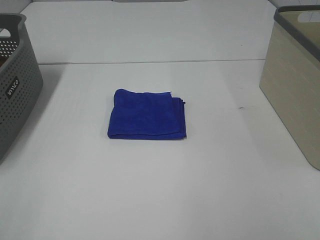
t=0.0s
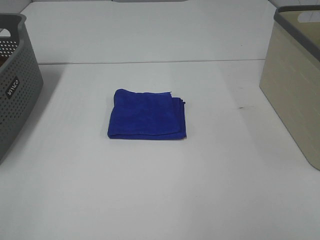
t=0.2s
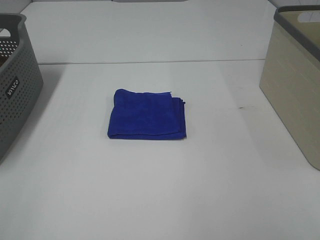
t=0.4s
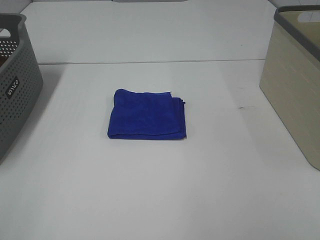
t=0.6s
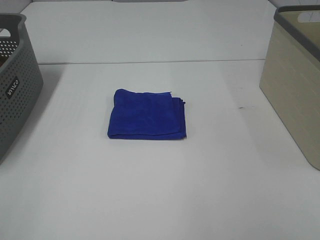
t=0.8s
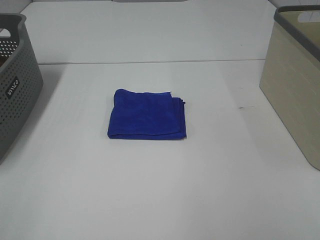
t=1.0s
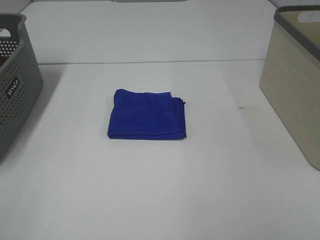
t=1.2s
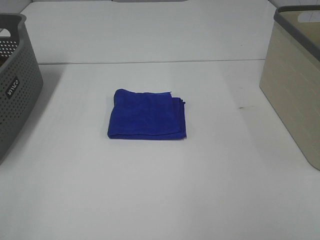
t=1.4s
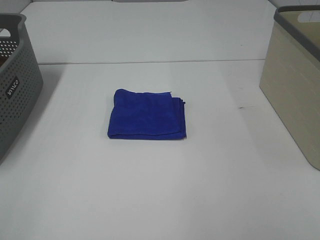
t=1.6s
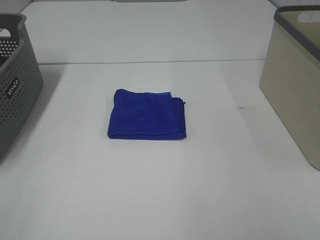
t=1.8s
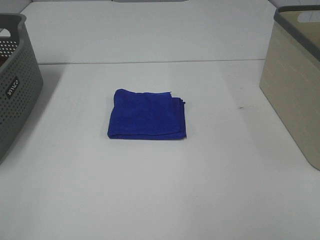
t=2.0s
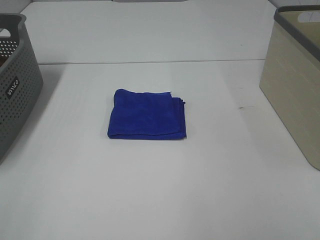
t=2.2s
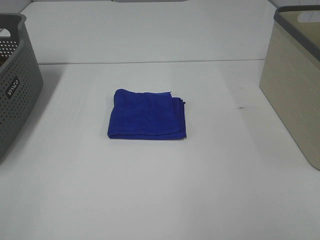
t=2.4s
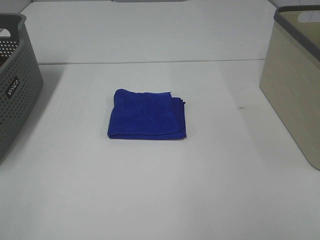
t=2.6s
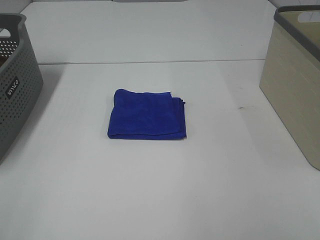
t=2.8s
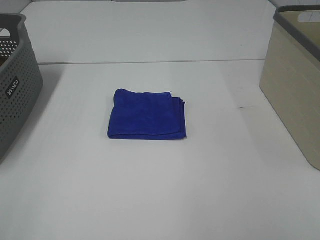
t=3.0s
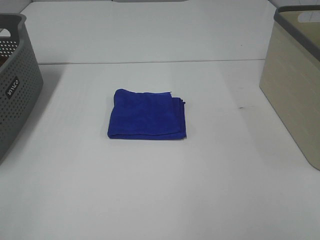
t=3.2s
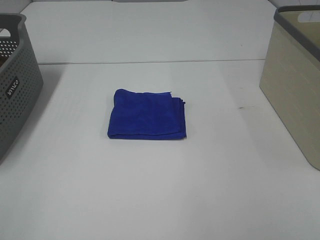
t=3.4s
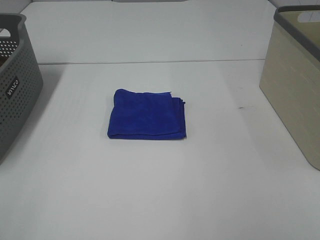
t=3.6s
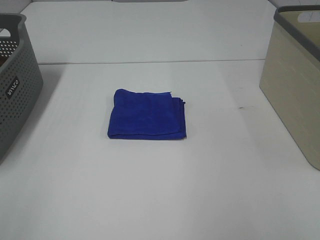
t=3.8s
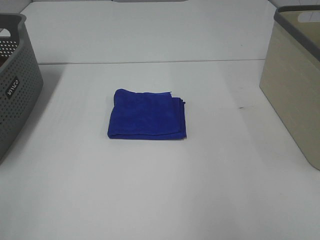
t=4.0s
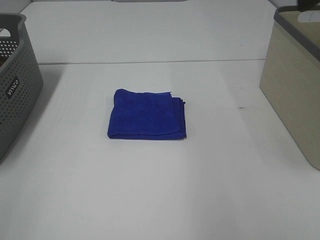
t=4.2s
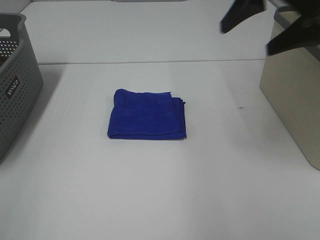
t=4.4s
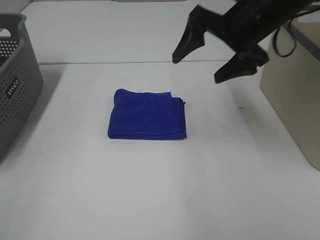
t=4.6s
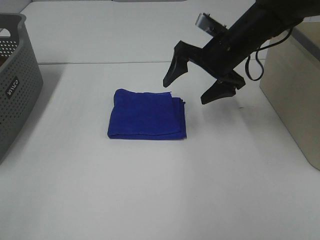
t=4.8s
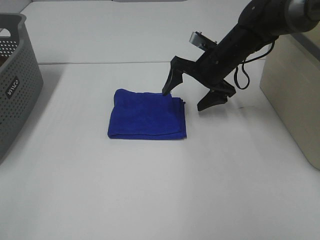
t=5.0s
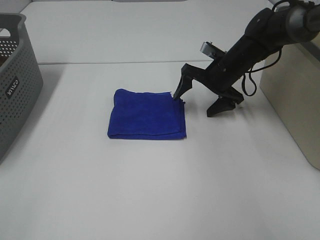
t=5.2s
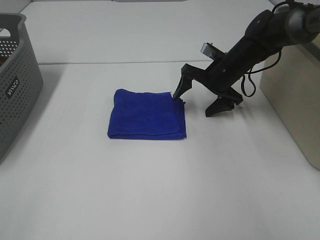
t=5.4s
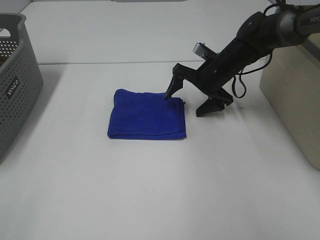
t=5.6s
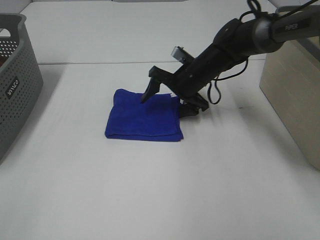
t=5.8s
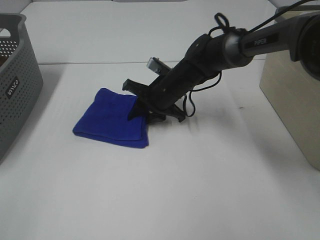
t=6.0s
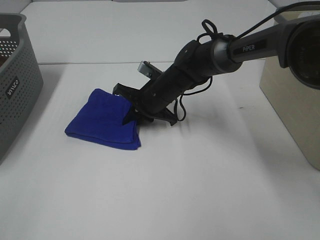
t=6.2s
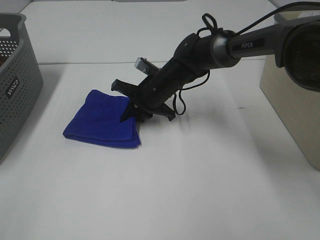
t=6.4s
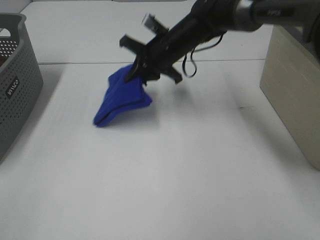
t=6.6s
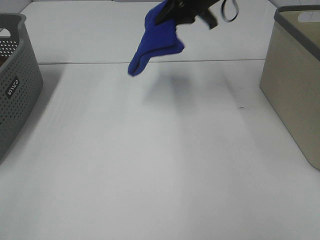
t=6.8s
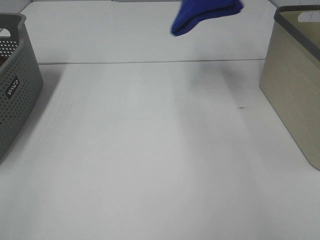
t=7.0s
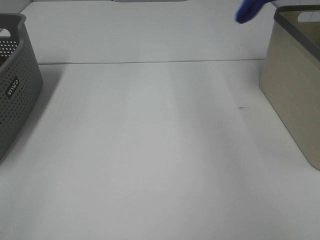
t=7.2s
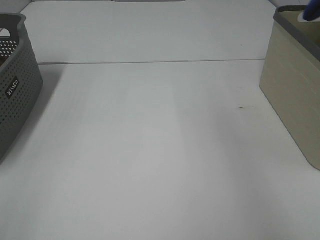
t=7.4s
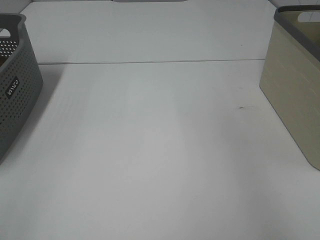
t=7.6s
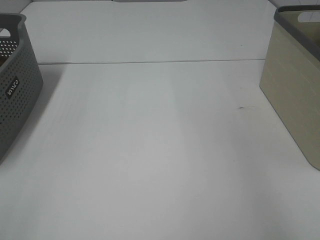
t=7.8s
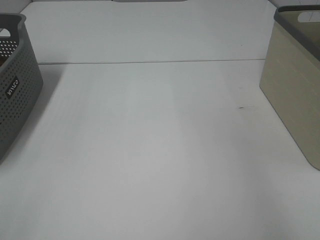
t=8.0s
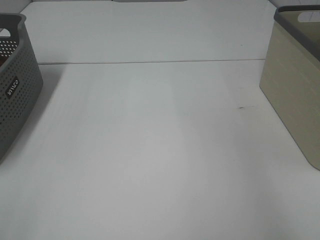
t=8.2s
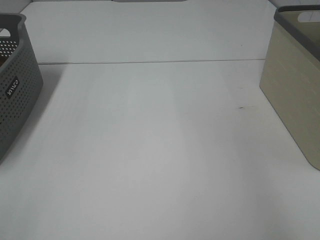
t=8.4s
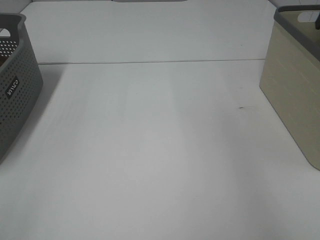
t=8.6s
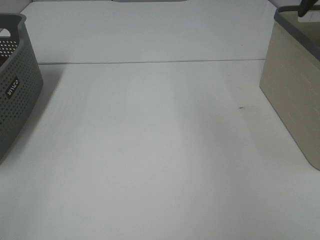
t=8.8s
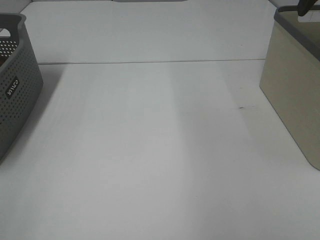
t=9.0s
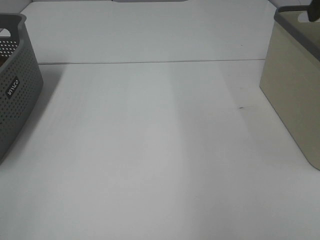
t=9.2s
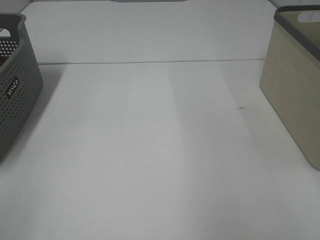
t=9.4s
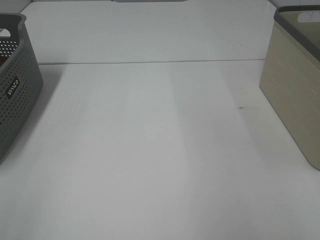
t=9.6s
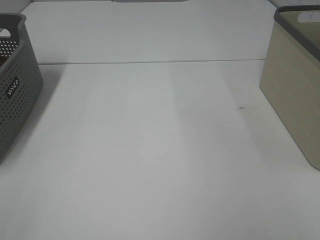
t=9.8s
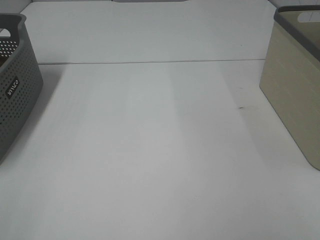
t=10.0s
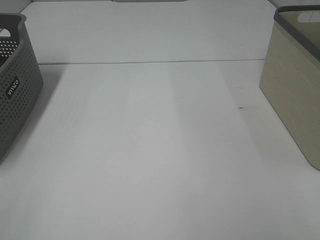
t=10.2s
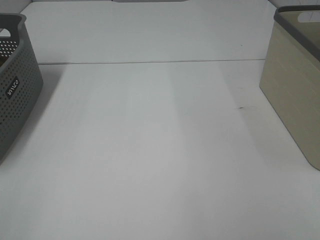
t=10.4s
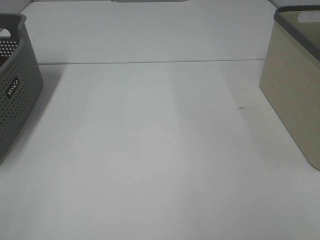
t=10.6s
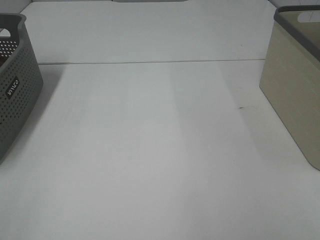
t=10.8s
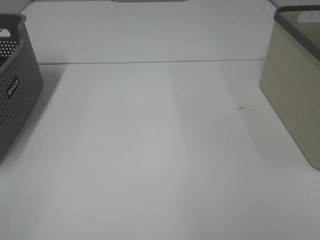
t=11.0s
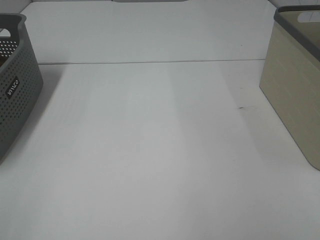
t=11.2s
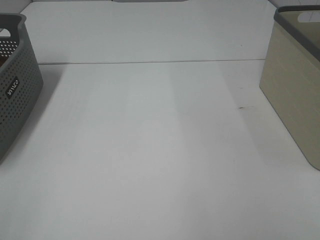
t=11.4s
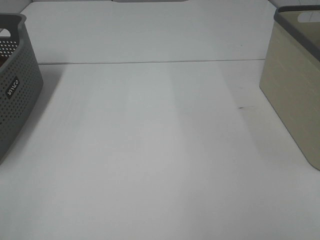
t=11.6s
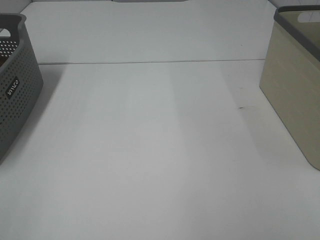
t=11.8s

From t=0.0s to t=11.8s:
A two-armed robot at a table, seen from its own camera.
Step, from t=0.0s to t=6.0s: Right hand: grab the folded blue towel.
Step, from t=6.2s to t=8.4s: Right hand: place the blue towel in right basket.
From t=0.0s to t=3.0s: Both grippers stay about where they are.
From t=3.0s to t=4.4s: The right gripper heads forward, covering about 30 cm.
From t=4.4s to t=6.0s: The right gripper is displaced downward and to the left by approximately 30 cm, and closes.
From t=6.0s to t=7.4s: The right gripper moves upward and to the right, some 50 cm, and closes its fingers.
